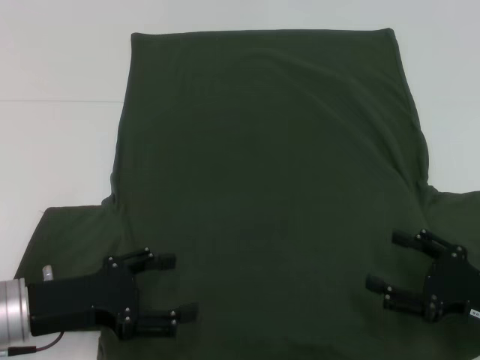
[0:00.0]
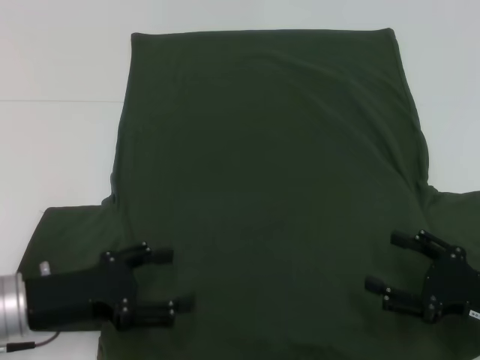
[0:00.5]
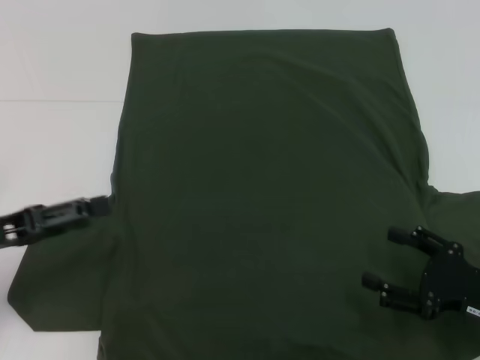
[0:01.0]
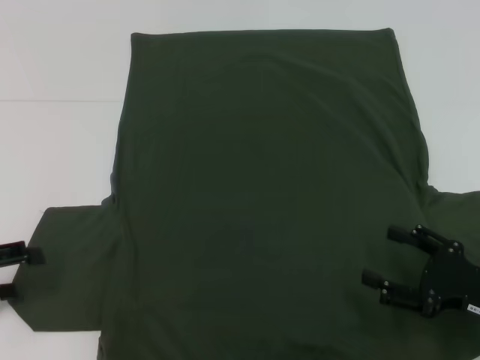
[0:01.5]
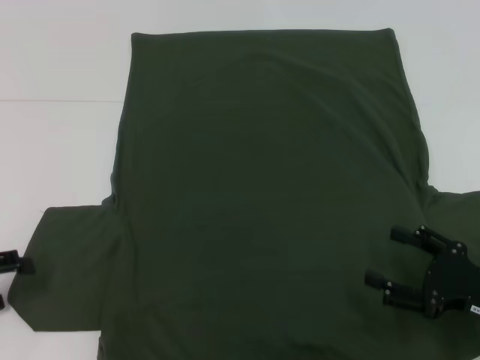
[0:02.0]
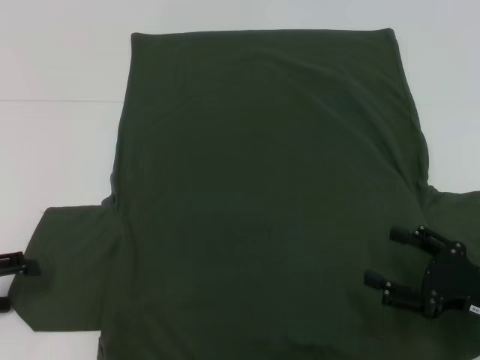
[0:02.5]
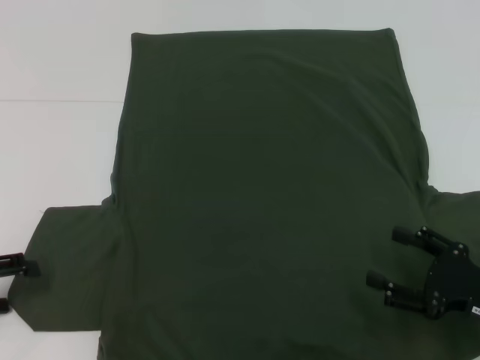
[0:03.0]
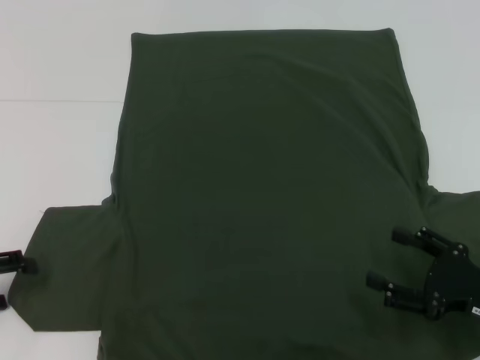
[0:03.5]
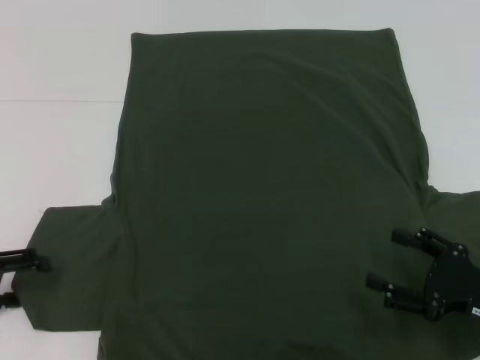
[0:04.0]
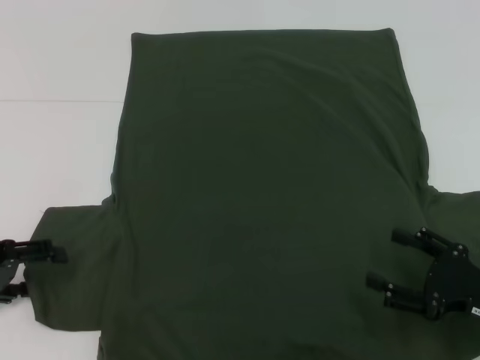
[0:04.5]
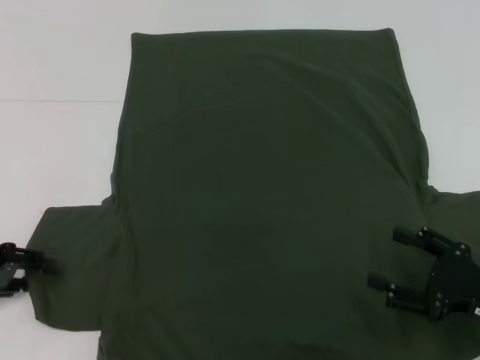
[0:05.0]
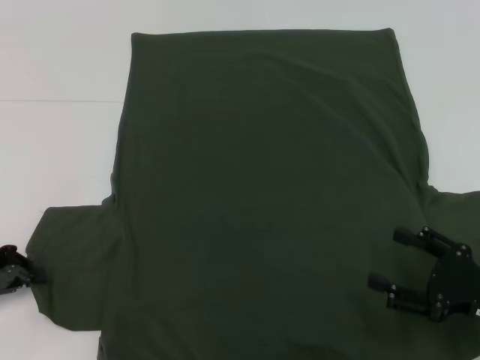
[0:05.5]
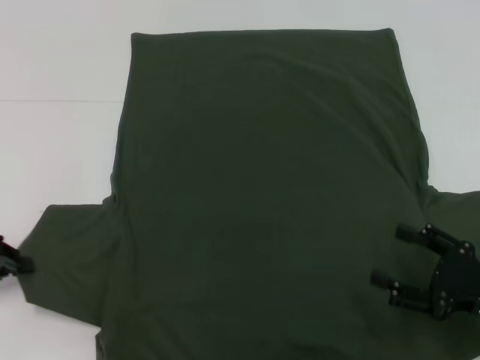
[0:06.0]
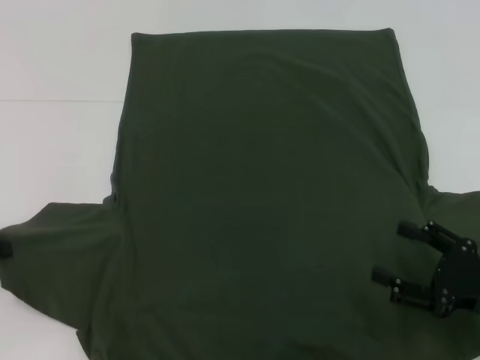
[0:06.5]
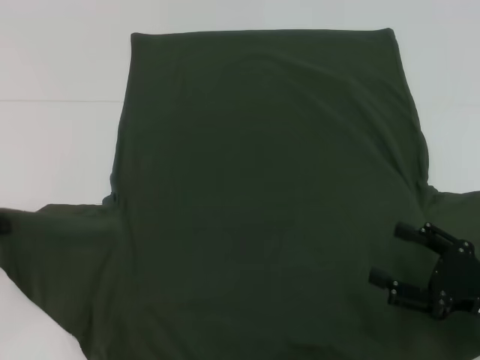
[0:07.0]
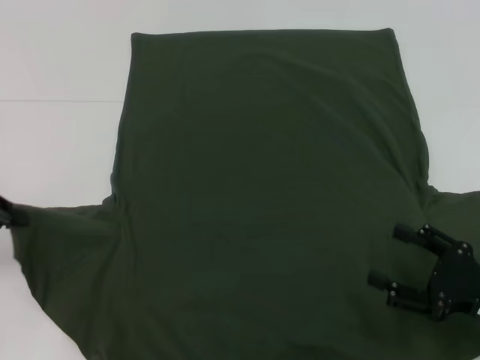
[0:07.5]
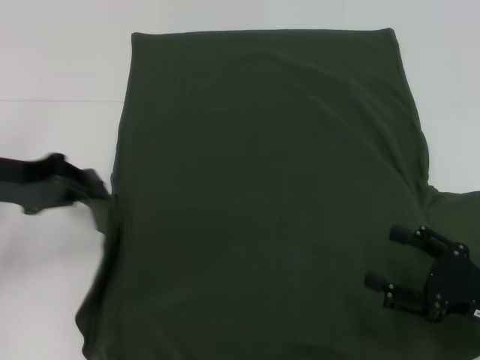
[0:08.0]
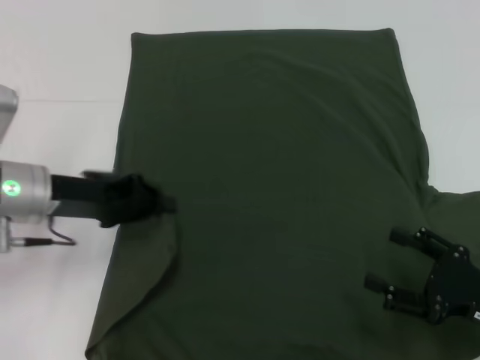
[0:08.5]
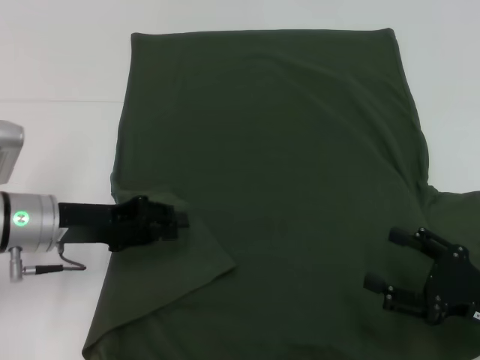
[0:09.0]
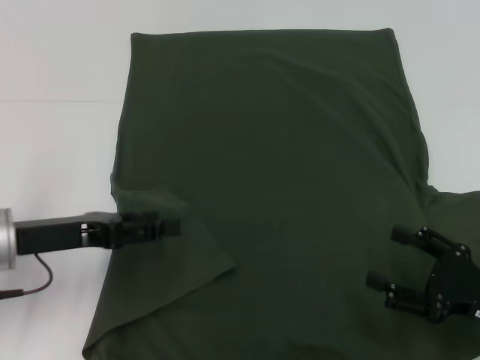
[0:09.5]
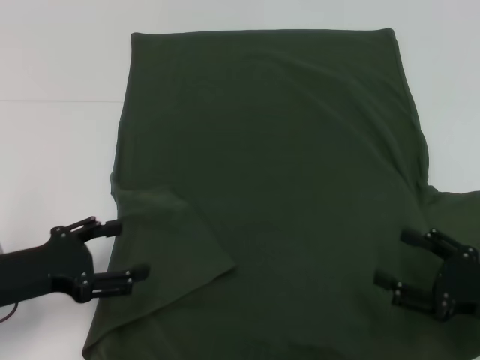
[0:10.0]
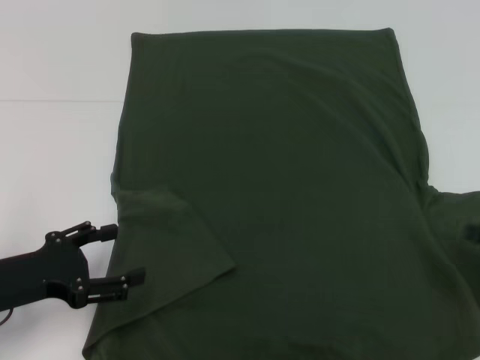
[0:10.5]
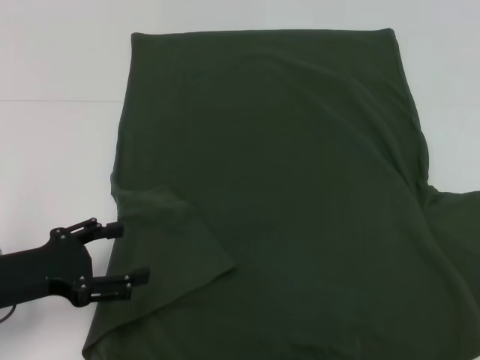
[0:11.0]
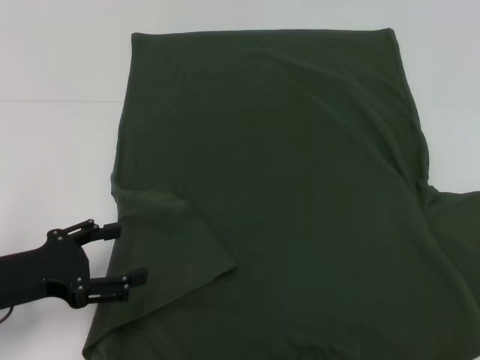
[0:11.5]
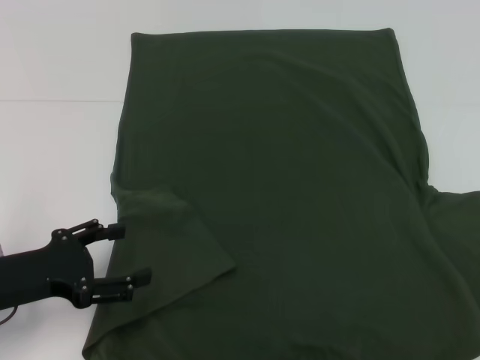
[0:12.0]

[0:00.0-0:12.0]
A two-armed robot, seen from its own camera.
Step, 0:00.0 to 0:09.0: Fold the bottom left sleeve with your left hand.
0:00.0 to 0:02.0: The left gripper goes approximately 15 cm to the left.
0:04.0 to 0:06.0: The left gripper closes up.
0:06.0 to 0:08.0: The left gripper heads upward, forward and to the right, covering roughly 10 cm.
0:08.0 to 0:10.0: The left gripper travels backward and downward by roughly 10 cm, and opens up.
0:10.0 to 0:12.0: The right gripper shifts about 15 cm to the right, upward and forward.

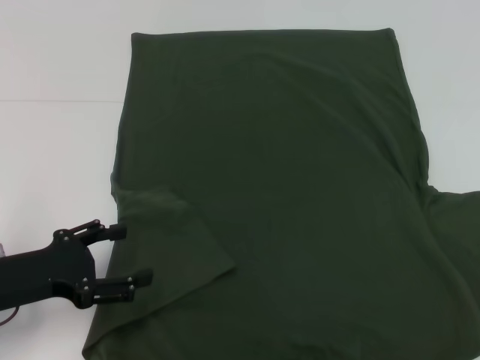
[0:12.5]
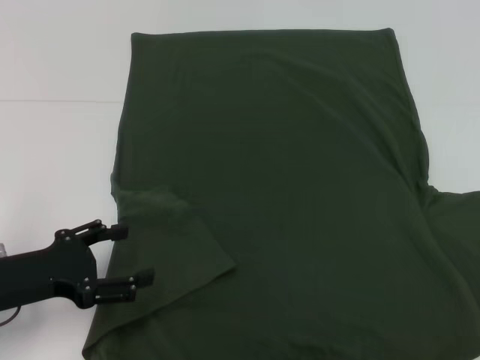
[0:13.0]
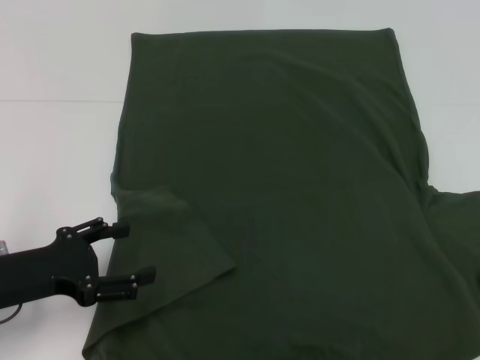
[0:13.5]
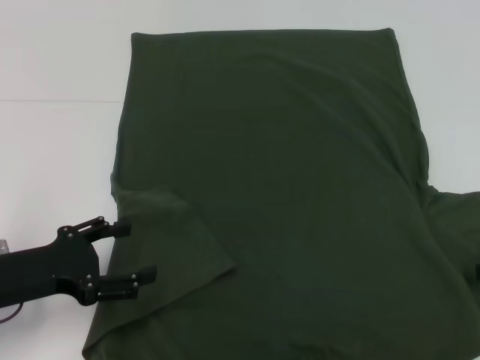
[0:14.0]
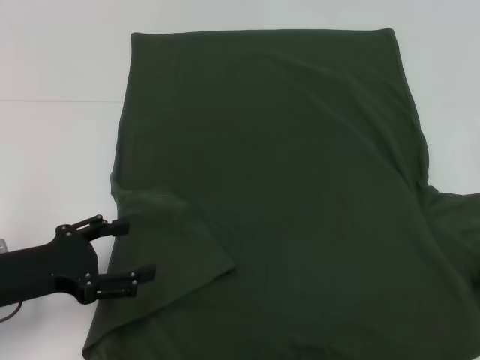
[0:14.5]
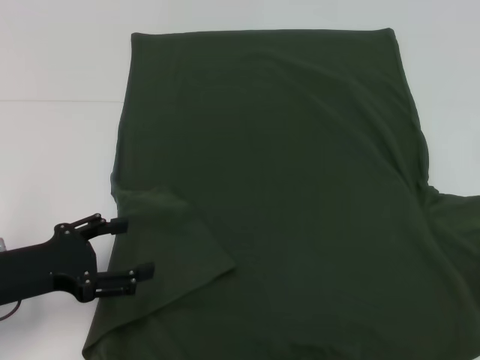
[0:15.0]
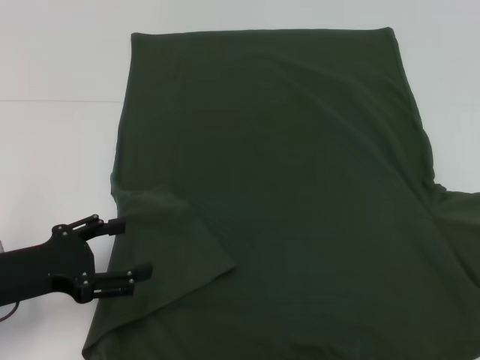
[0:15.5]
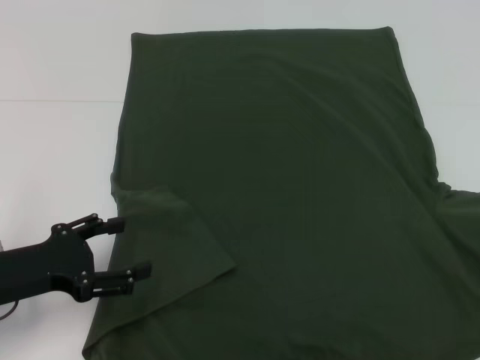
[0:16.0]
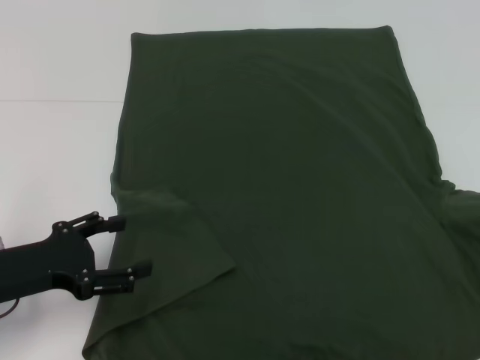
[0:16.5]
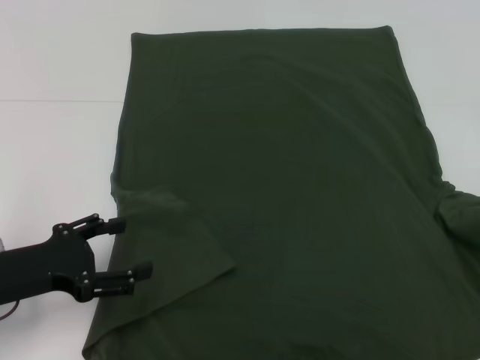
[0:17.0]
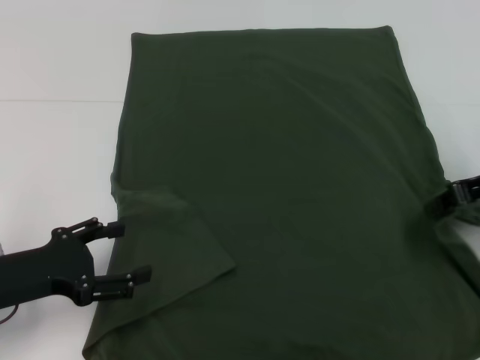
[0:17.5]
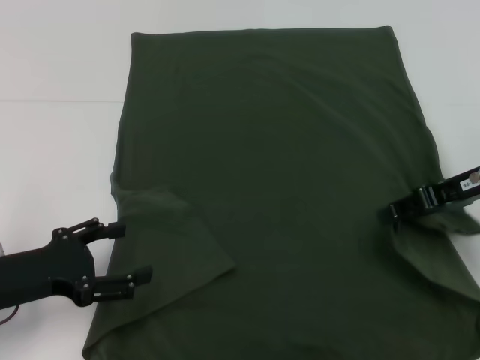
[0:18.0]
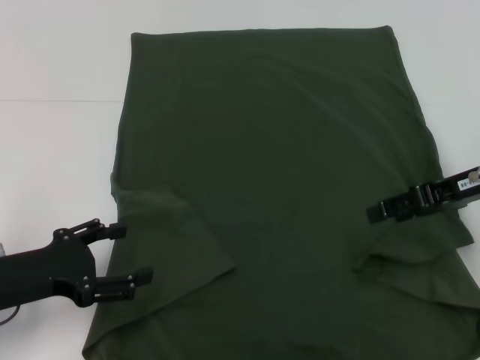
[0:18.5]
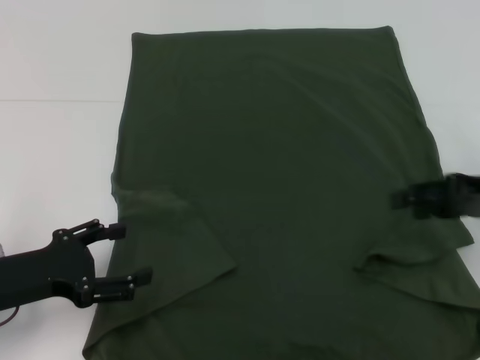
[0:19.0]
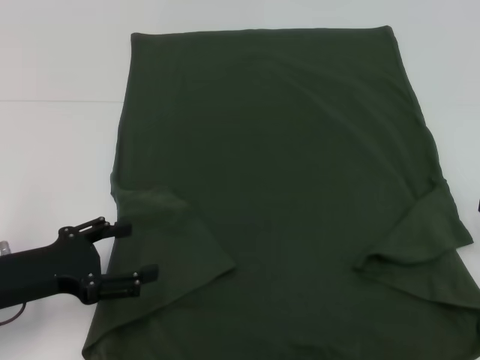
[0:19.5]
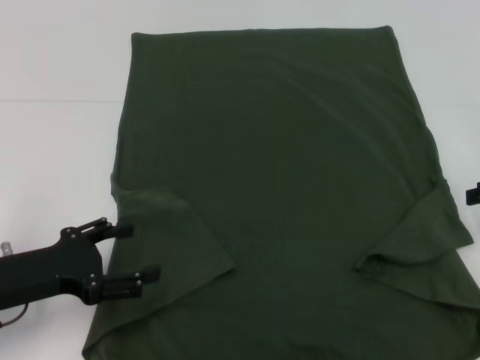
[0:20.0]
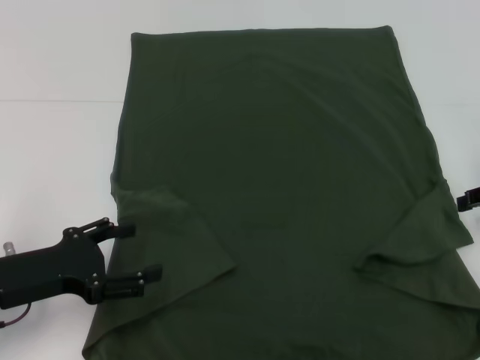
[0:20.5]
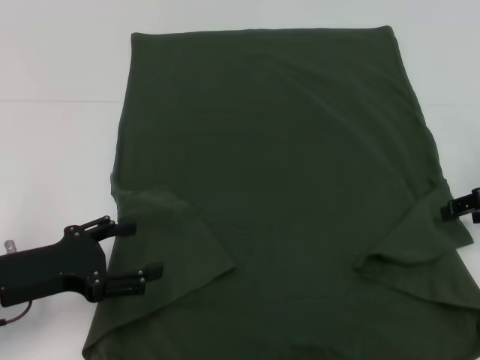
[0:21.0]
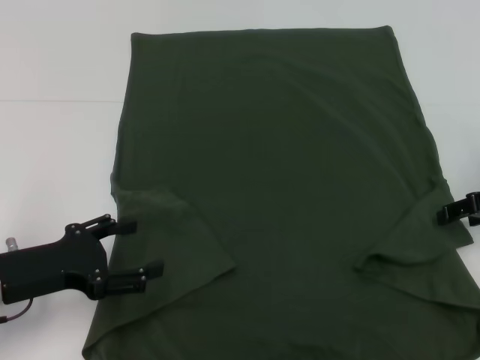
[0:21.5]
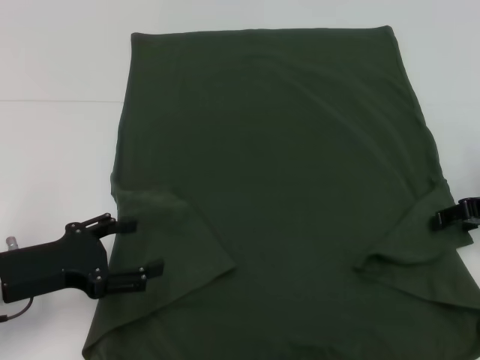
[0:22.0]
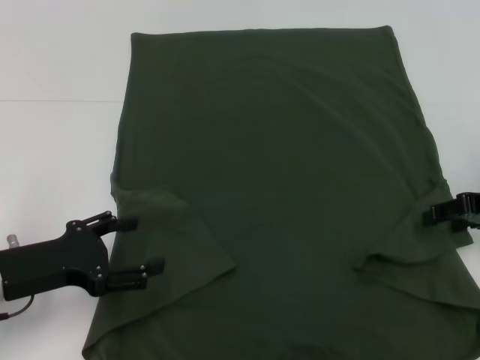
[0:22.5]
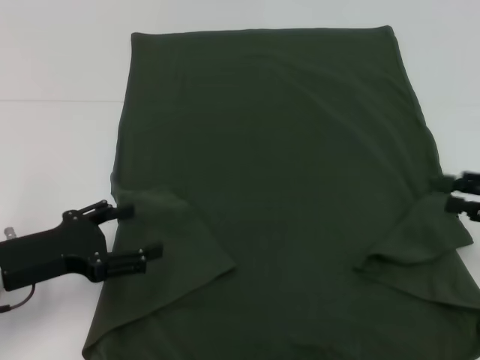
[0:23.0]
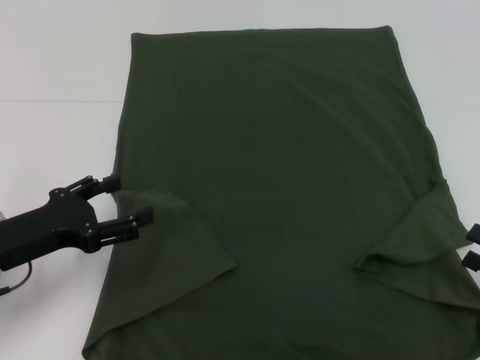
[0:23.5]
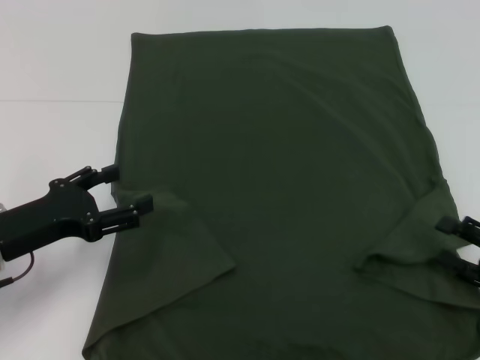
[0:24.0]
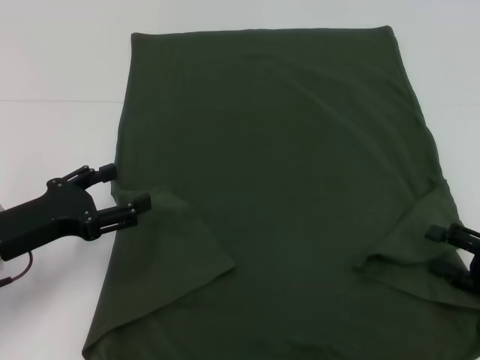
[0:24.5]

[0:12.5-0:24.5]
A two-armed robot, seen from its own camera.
0:12.5 to 0:14.5: The grippers stay close to where they were, moving slightly.
0:14.5 to 0:16.5: The right gripper goes roughly 5 cm upward, and closes its fingers.
0:16.5 to 0:18.5: The right gripper is displaced to the left by some 15 cm, and opens.
0:18.5 to 0:20.5: The right gripper is displaced to the right by roughly 10 cm.
0:20.5 to 0:22.5: The grippers stay close to where they were, moving slightly.
0:22.5 to 0:24.5: The right gripper travels backward and downward by roughly 15 cm.

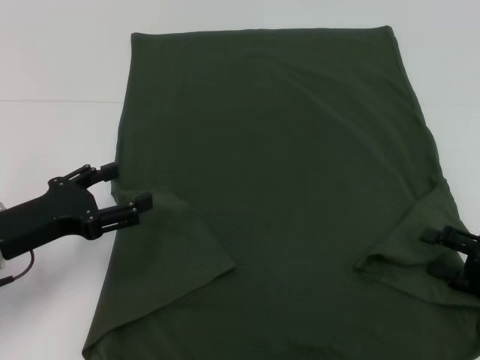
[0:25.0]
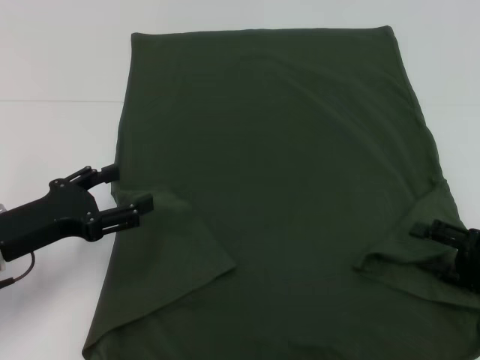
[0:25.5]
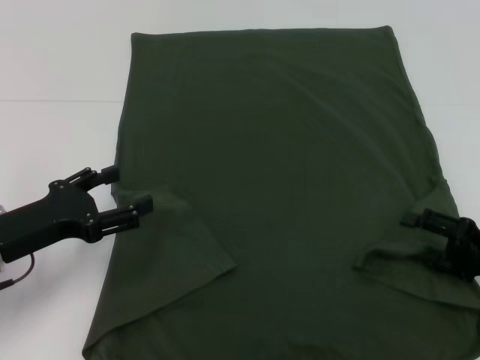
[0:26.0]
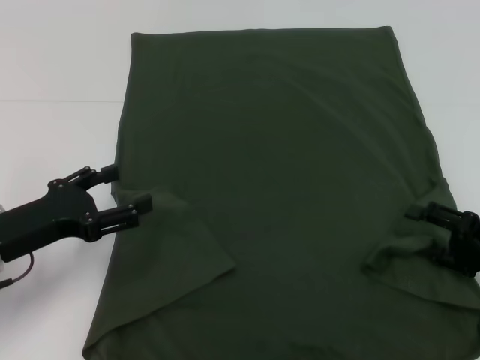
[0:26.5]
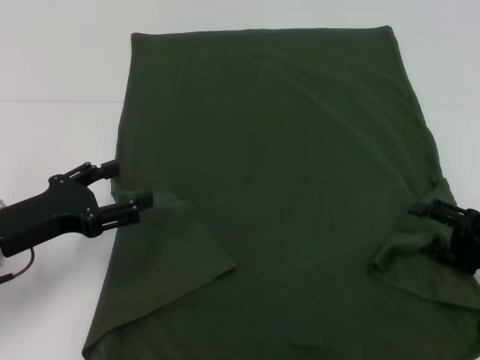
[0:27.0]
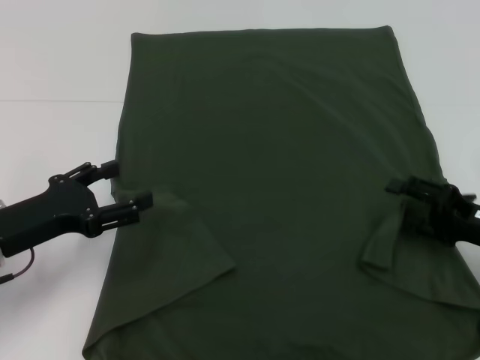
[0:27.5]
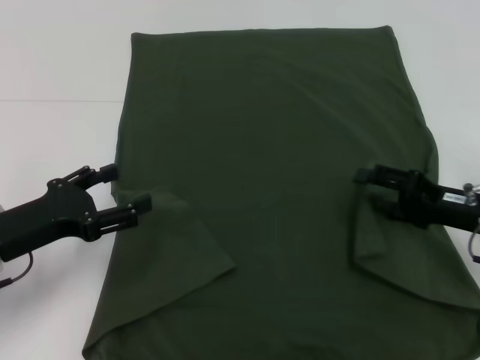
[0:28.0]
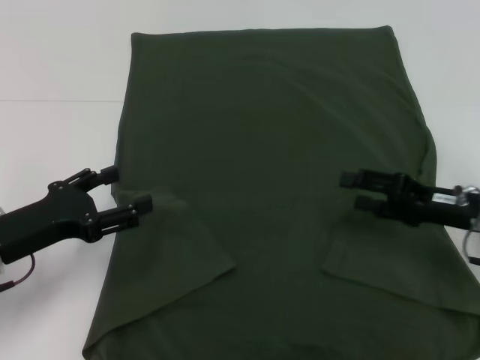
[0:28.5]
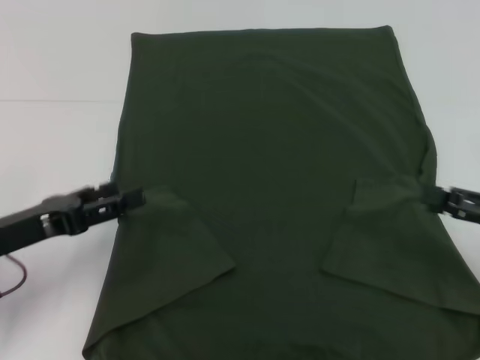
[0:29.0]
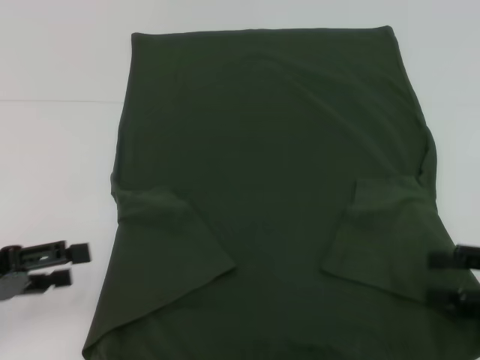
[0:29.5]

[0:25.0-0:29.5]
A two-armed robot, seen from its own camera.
Step, 0:25.0 to 0:28.5: Fold the bottom right sleeve with your right hand.
0:25.0 to 0:27.0: The grippers move only a little.
0:27.0 to 0:29.5: The left gripper heads to the left, covering approximately 5 cm, while the right gripper moves upward, approximately 5 cm.
